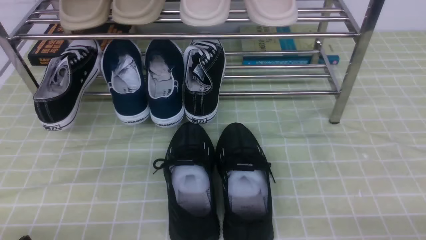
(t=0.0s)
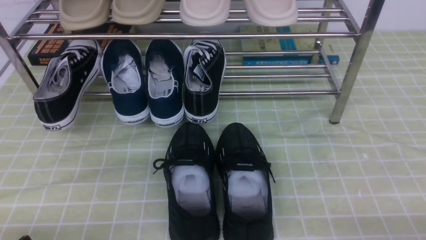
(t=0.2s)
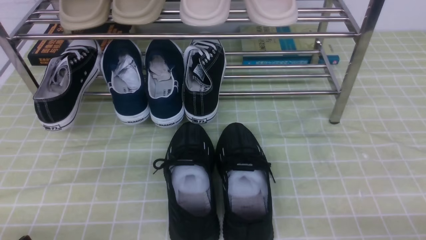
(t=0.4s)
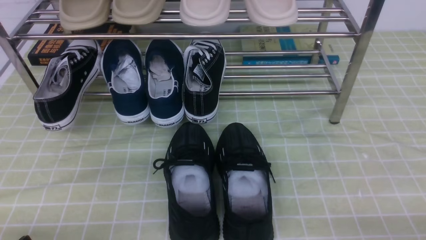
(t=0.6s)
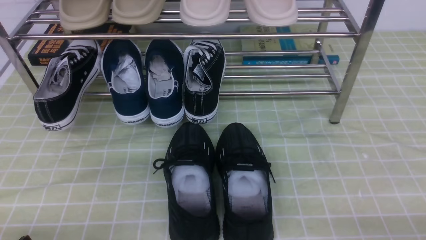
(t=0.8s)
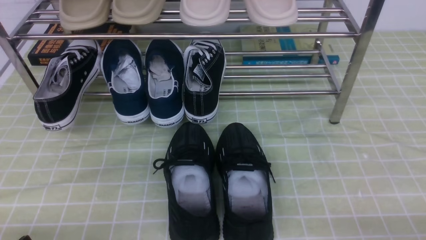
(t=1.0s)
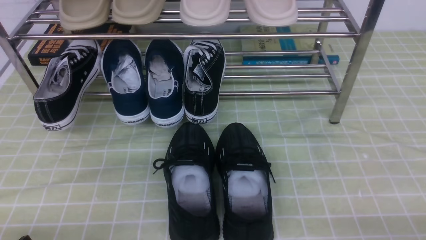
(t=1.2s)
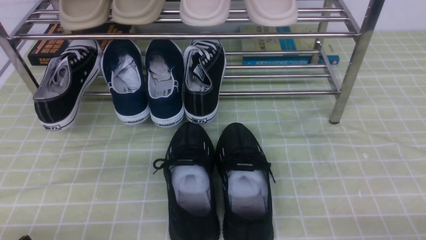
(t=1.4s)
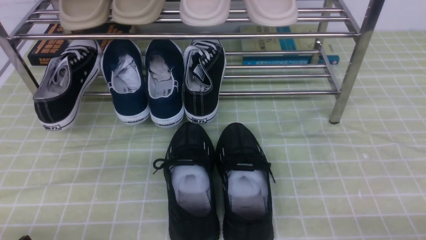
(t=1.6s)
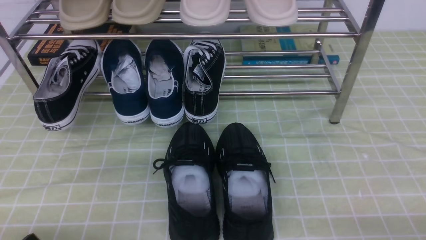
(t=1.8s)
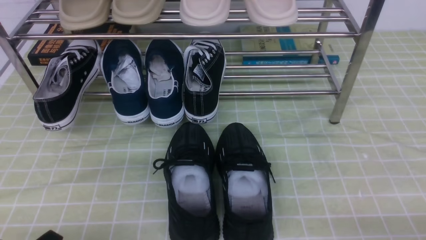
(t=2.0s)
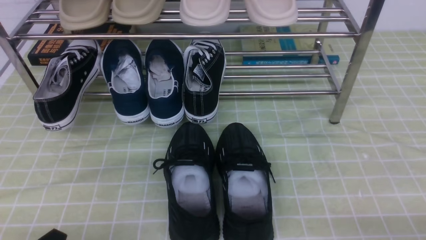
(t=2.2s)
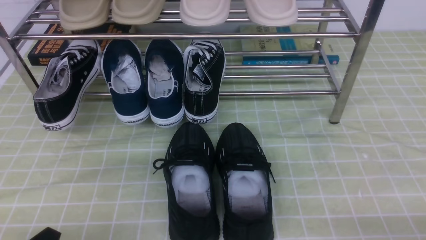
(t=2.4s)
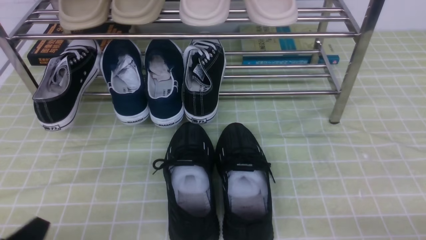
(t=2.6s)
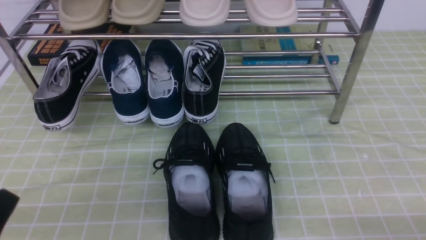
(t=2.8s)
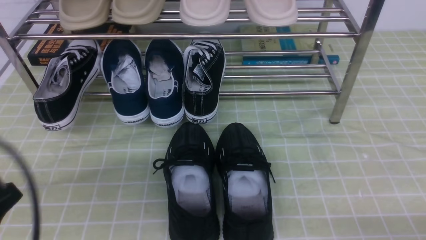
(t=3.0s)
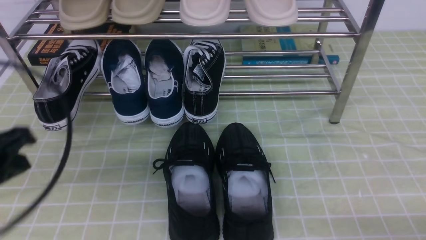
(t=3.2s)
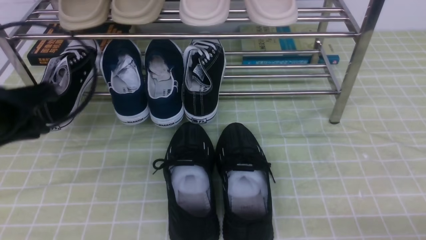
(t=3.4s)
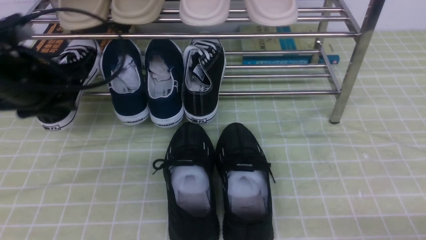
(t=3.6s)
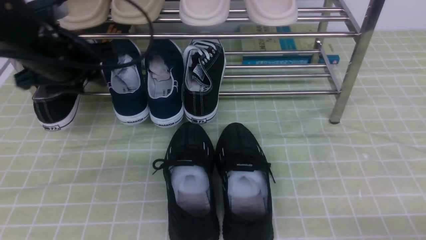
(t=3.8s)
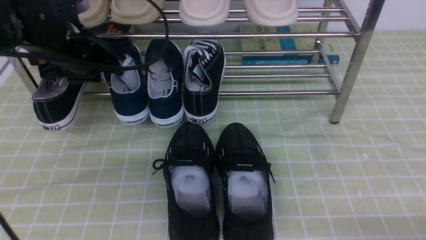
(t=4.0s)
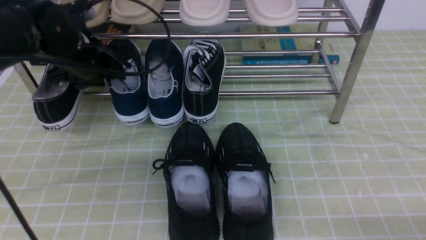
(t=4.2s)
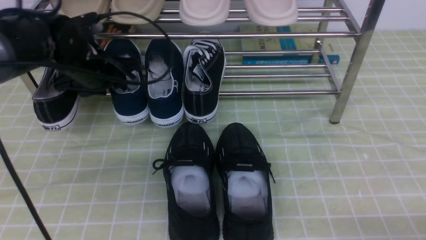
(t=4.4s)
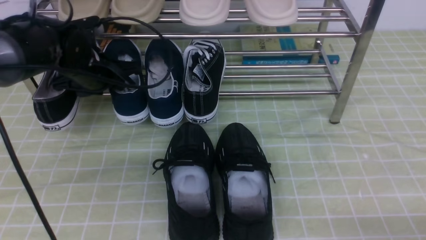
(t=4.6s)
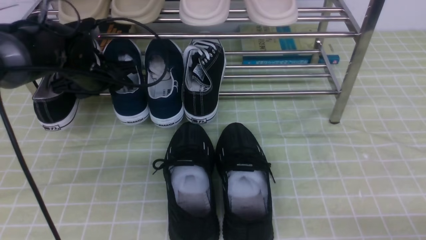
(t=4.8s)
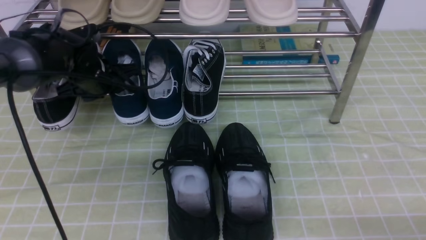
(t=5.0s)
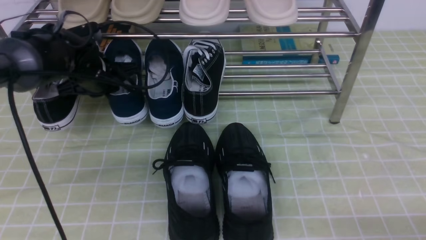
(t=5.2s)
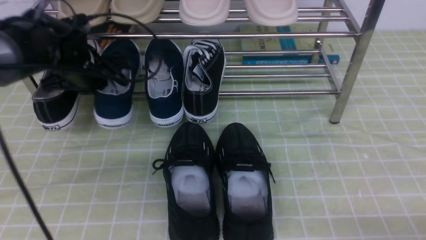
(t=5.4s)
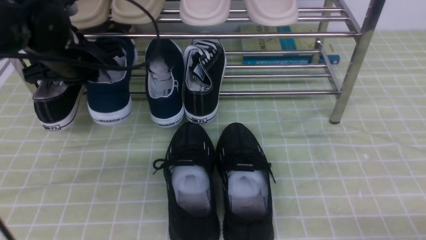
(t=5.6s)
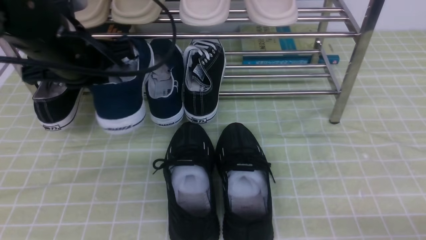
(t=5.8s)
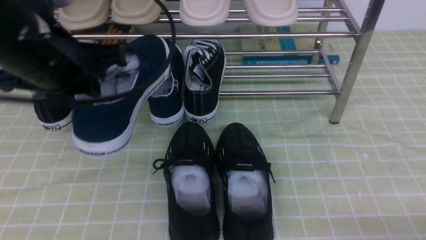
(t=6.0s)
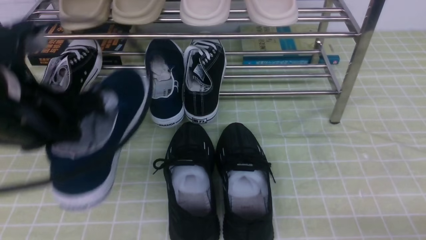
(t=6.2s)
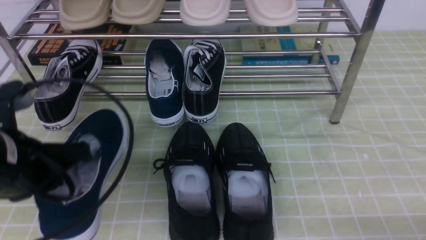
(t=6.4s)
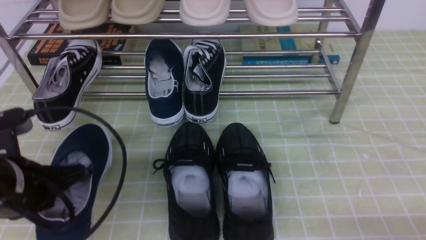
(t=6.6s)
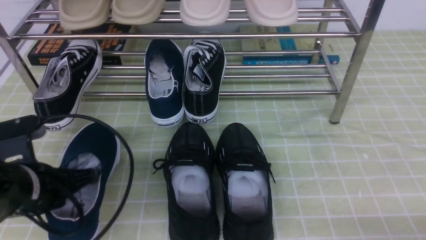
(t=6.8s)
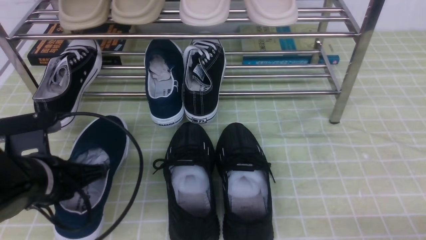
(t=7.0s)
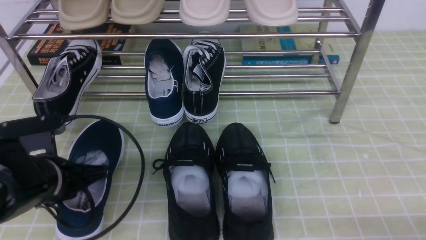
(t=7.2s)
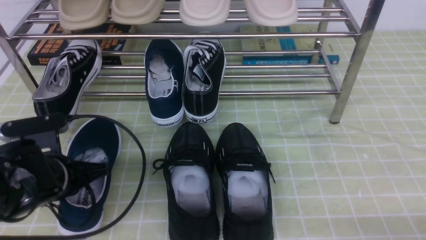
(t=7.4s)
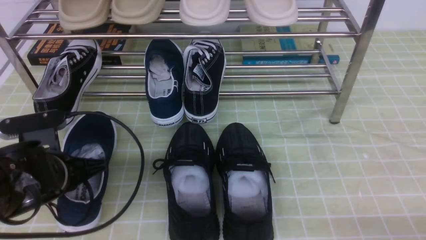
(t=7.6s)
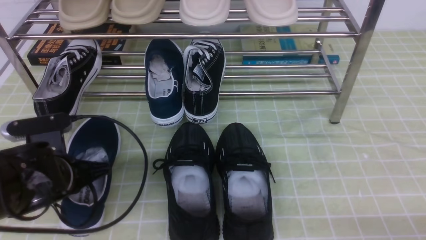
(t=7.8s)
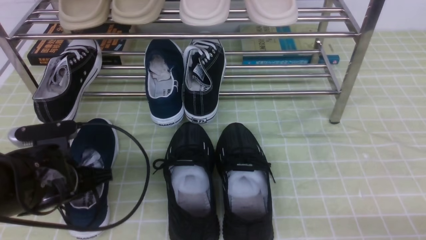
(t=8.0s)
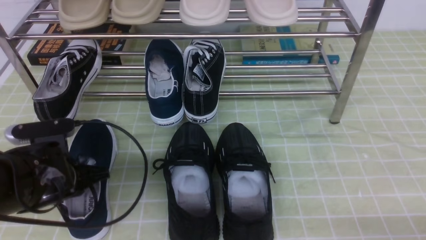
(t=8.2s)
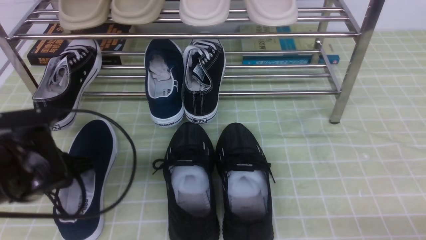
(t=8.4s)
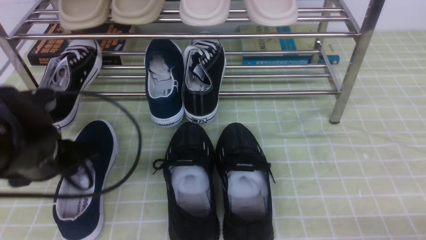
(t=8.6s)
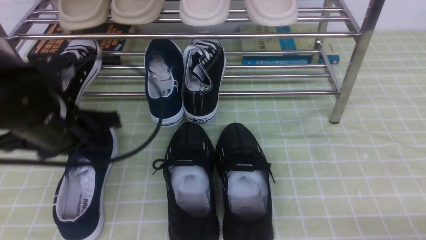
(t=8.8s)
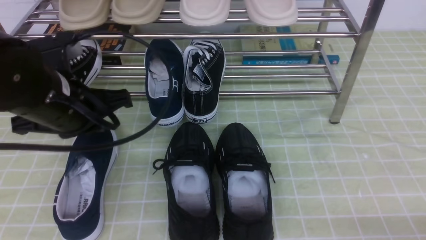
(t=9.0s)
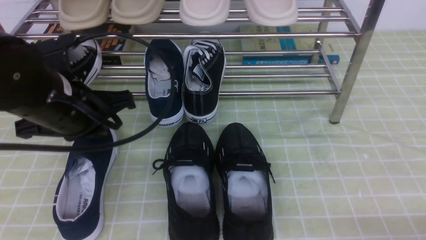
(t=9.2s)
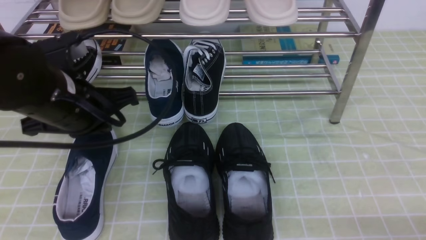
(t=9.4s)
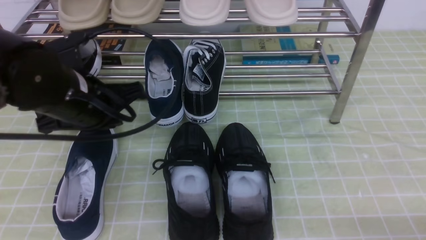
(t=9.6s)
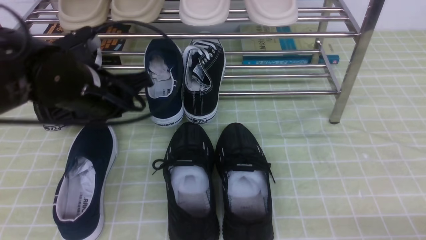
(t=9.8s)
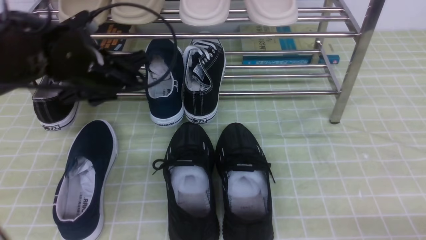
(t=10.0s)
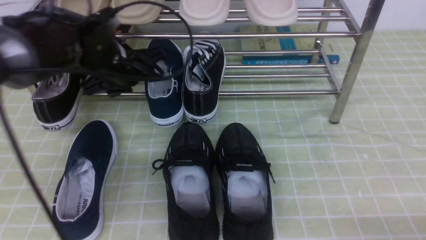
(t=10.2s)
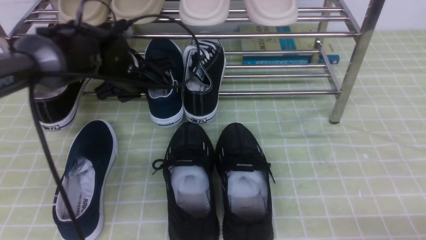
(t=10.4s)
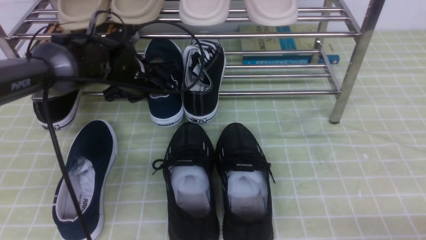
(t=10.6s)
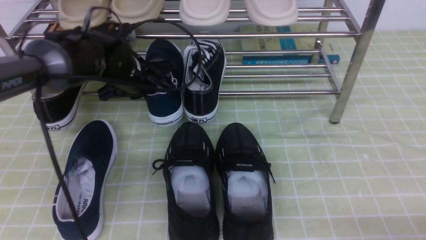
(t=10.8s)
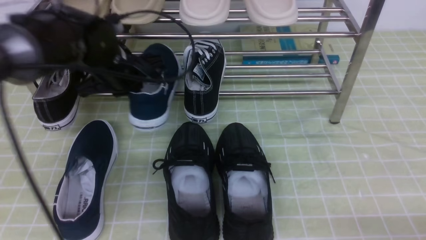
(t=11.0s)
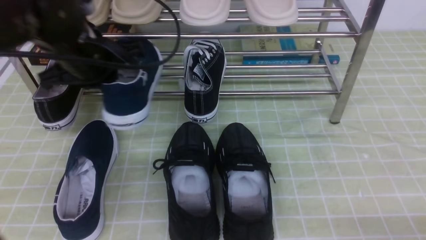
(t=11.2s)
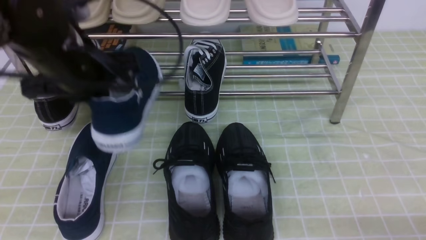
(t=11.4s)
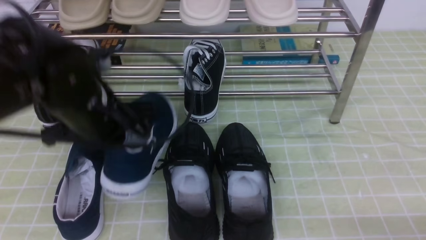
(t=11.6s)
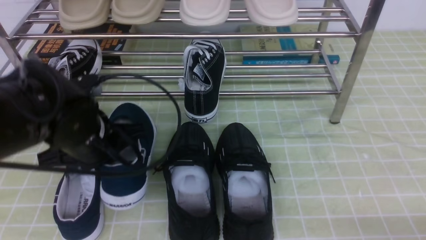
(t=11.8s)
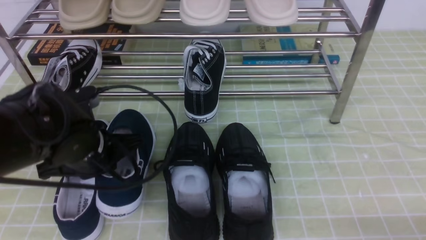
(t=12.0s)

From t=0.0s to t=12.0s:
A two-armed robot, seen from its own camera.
Step, from t=0.0s to t=5.4s: use the left arm to clamp a shoe on the left side of the shoe rack.
Step, from t=5.6s to t=8.4s: Use your left arm to remove the clamped shoe from the shoe rack and put it down.
Step, from t=8.6s to t=10.8s: use the left arm to clamp a shoe in the middle of the shoe rack.
From t=1.6s to t=3.0s: The left gripper heads upward, covering approximately 15 cm, and closes its fingers.
From t=3.0s to t=4.4s: The left gripper goes approximately 30 cm forward, and opens its fingers.
From t=4.4s to t=6.0s: The left gripper travels backward and upward by approximately 15 cm, and closes up.
From t=6.0s to t=7.6s: The left gripper heads downward, covering some 15 cm.
From t=7.6s to t=9.0s: The left gripper moves upward, roughly 10 cm, and opens, then closes again.
From t=9.0s to t=10.4s: The left gripper travels forward and downward by some 15 cm, and opens its fingers.
From t=10.4s to t=12.0s: The left gripper travels backward by about 15 cm, and closes up.

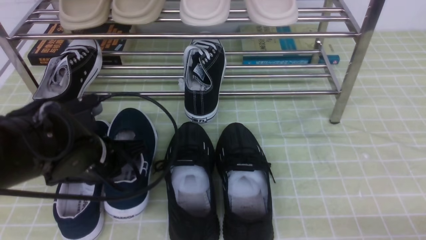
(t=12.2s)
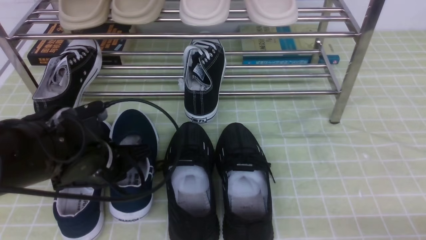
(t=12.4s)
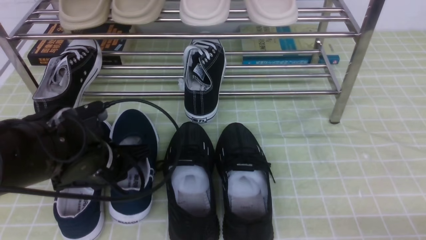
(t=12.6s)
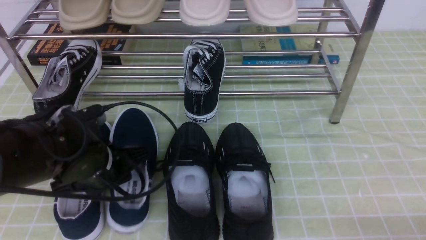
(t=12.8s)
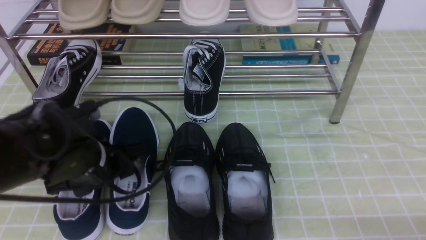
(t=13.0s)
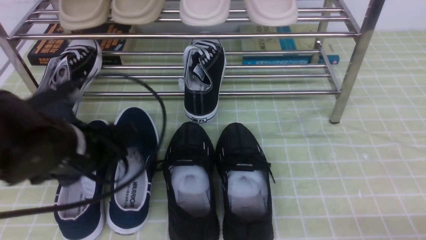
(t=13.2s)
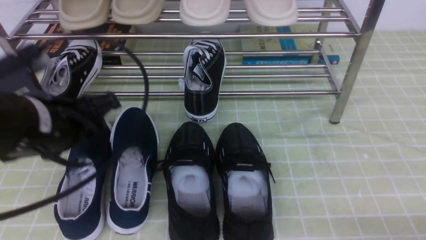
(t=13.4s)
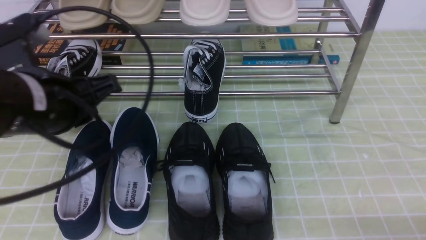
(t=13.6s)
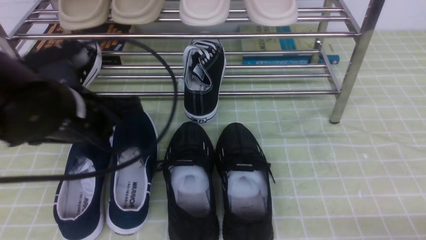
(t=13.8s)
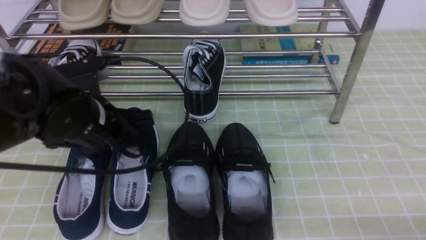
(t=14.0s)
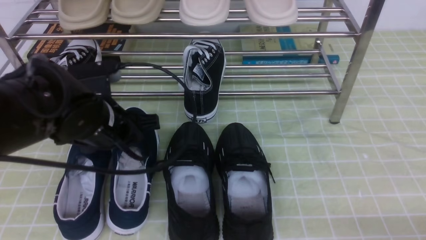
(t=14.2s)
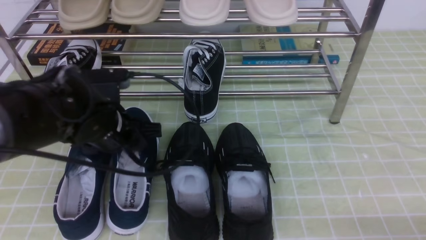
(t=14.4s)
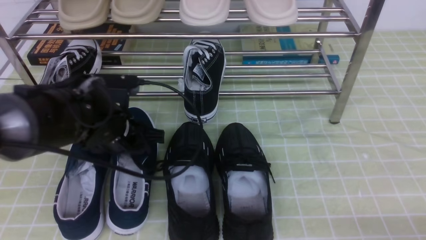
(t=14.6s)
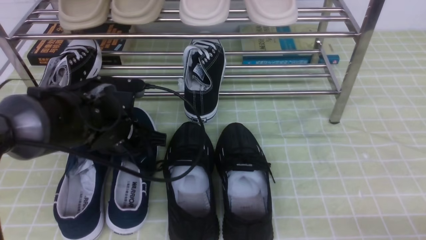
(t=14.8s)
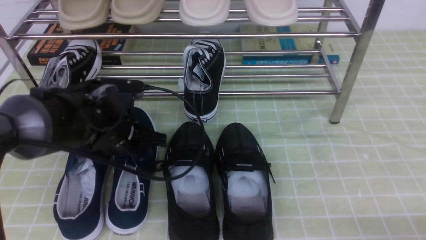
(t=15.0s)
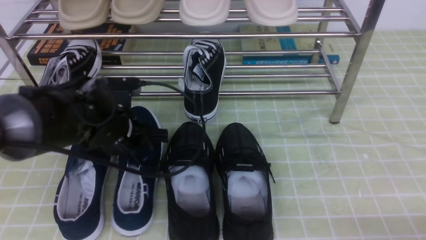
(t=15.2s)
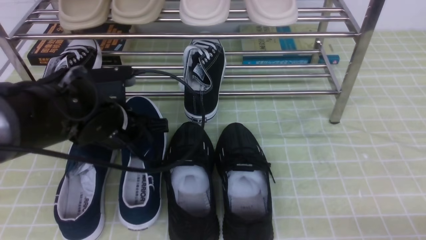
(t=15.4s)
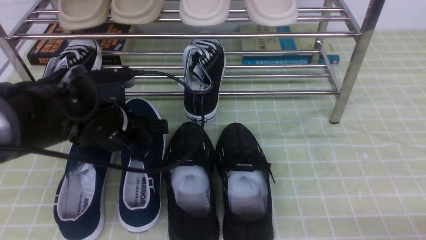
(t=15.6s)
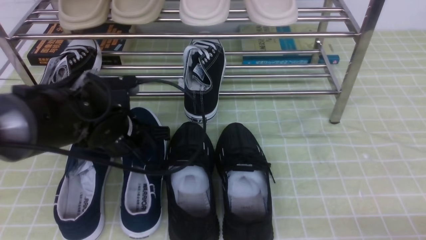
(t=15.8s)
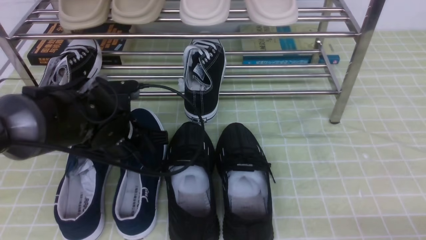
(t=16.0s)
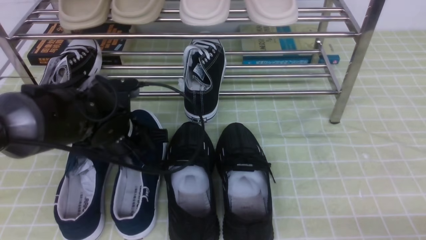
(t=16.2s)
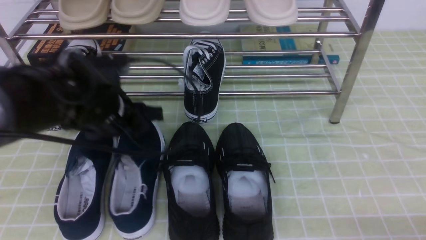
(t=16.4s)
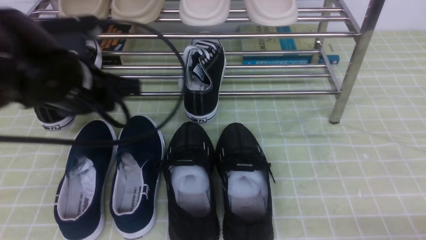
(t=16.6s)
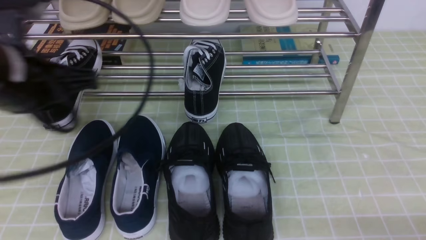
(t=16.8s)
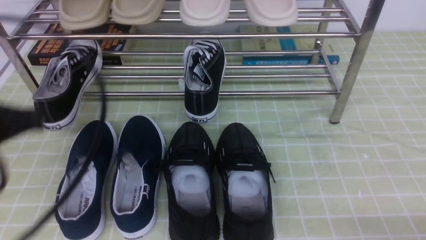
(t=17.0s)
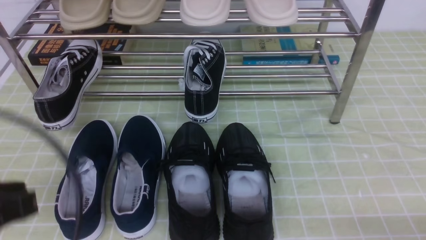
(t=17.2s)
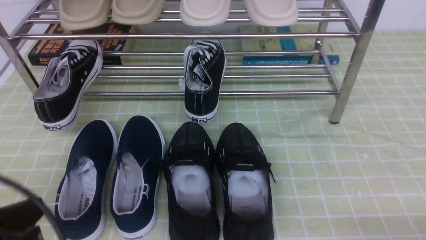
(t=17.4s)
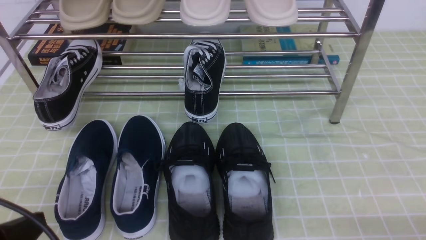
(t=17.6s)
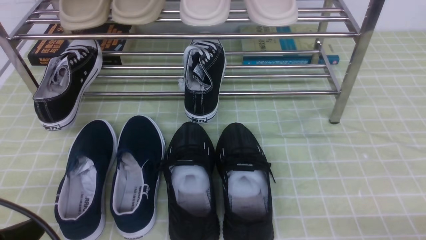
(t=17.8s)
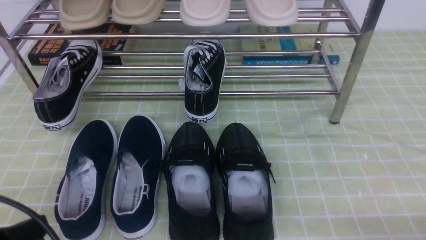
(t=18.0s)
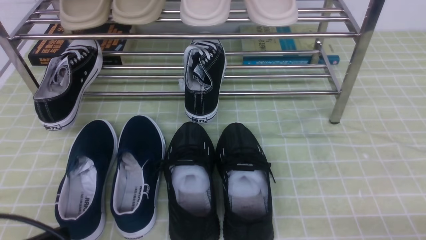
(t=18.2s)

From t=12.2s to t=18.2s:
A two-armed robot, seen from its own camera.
From t=12.2s to t=13.8s: The left gripper travels upward by roughly 10 cm, and opens and closes again.
From t=13.8s to t=15.2s: The left gripper goes about 10 cm downward and forward, and opens and closes again.
From t=15.2s to t=16.6s: The left gripper heads upward, covering approximately 10 cm, and opens up.
From t=16.6s to t=18.2s: The left gripper moves backward and downward, approximately 20 cm, and closes.
